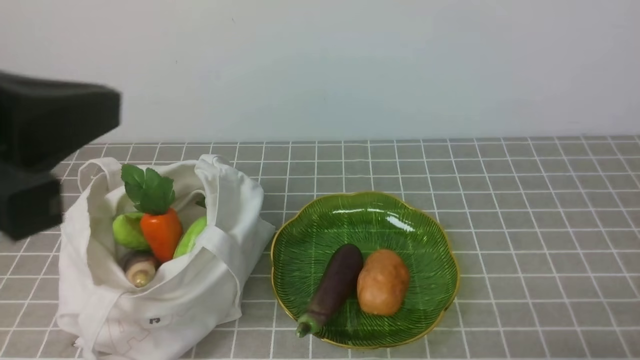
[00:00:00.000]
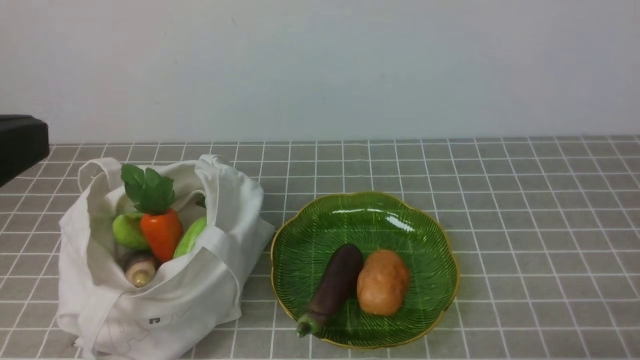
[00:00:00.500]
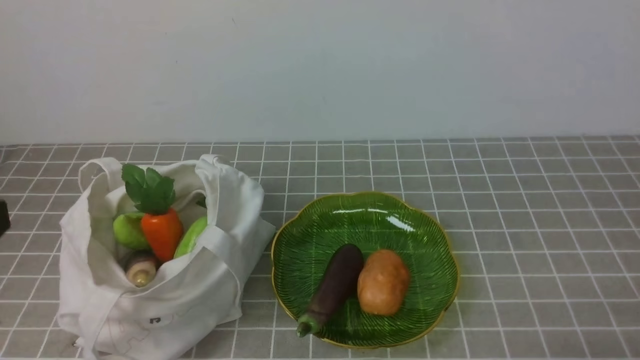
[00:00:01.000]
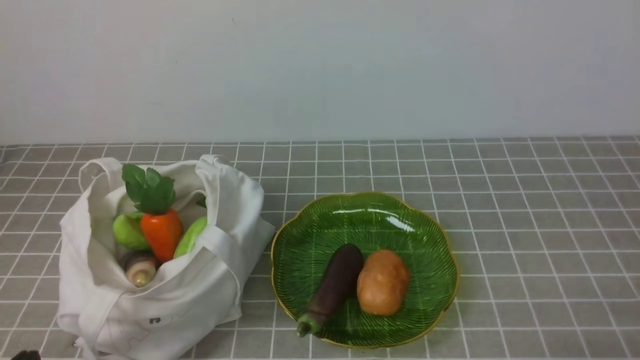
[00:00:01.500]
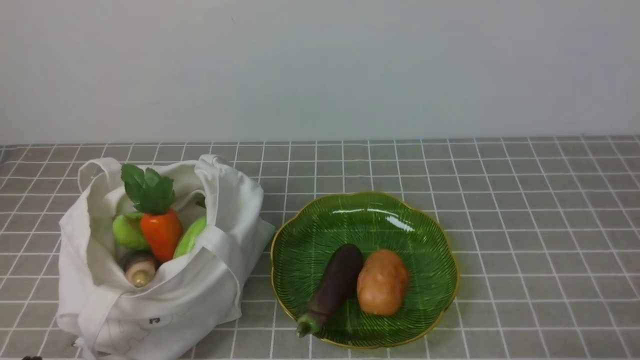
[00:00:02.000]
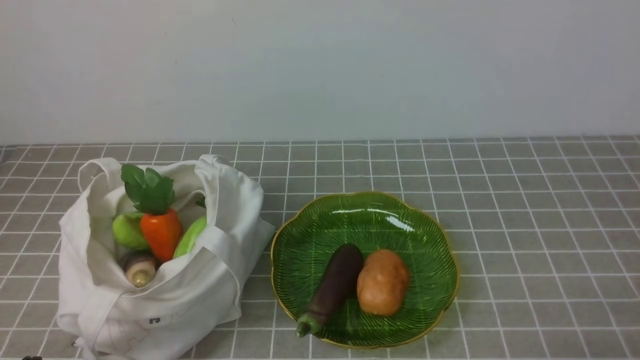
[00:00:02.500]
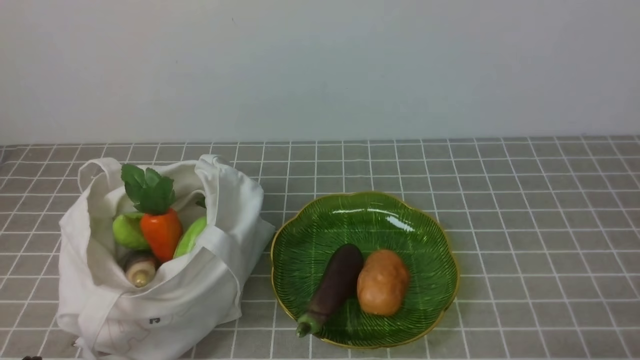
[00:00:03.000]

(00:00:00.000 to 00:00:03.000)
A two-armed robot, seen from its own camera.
Task of the whole recording: take vegetables from bag on grey coffee tablecloth place on plate.
00:00:00.000 - 00:00:01.500: The left gripper goes roughly 25 cm downward.

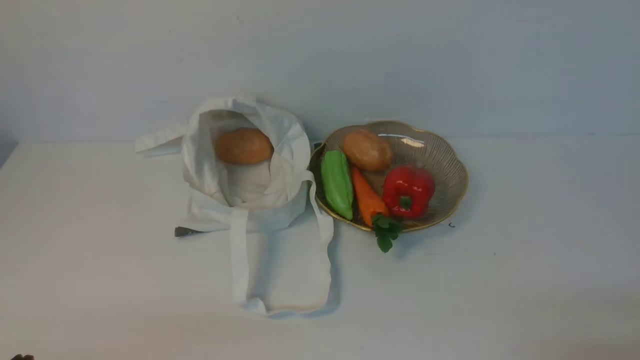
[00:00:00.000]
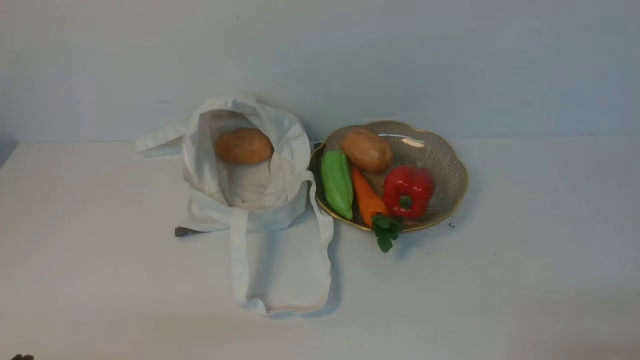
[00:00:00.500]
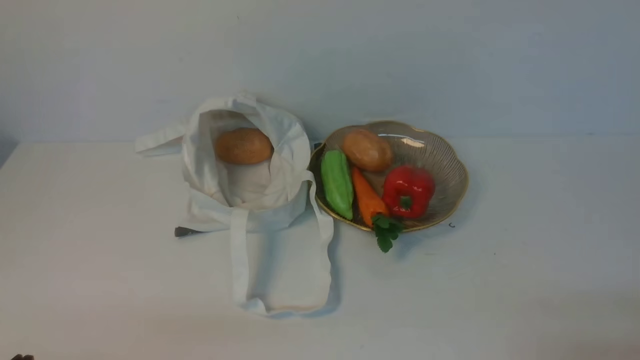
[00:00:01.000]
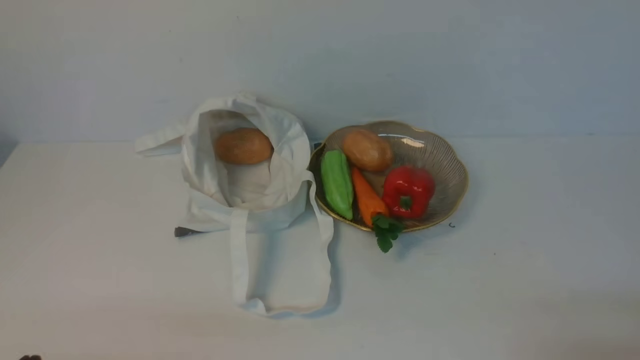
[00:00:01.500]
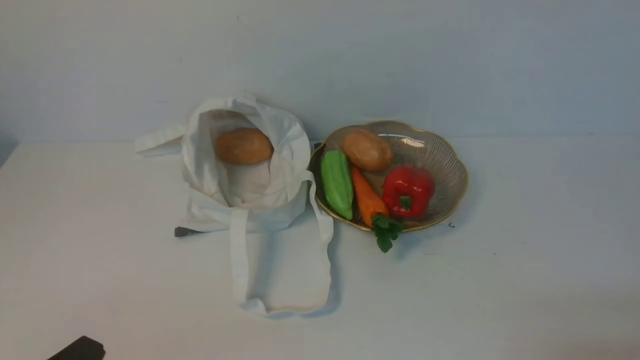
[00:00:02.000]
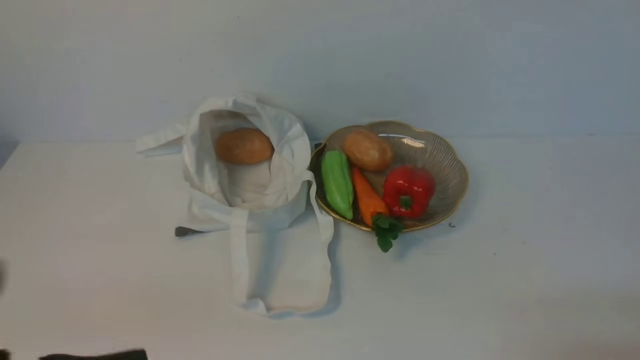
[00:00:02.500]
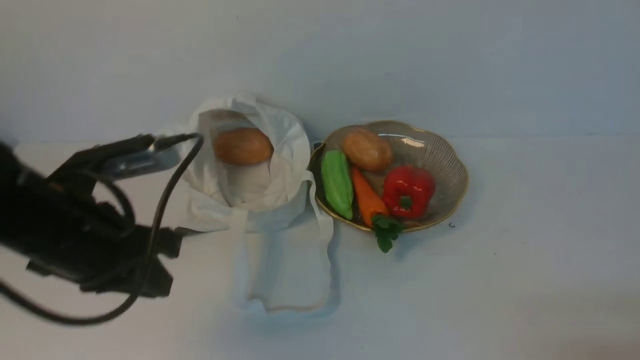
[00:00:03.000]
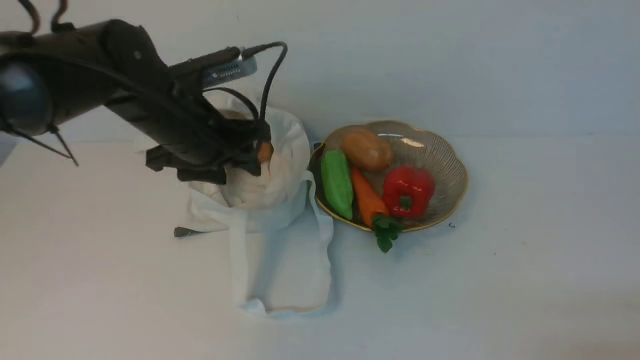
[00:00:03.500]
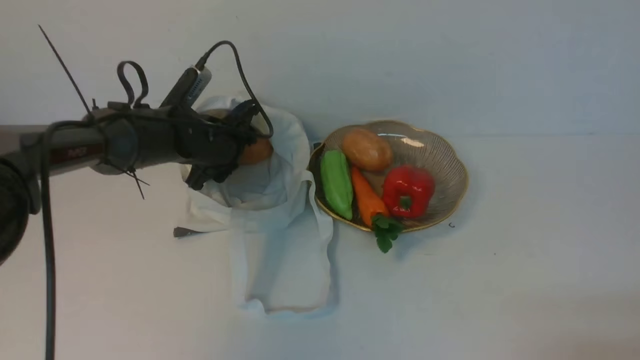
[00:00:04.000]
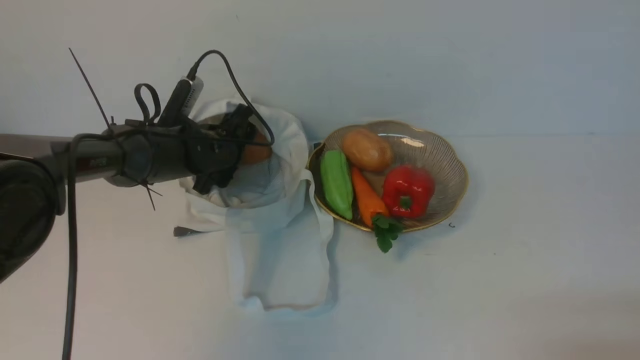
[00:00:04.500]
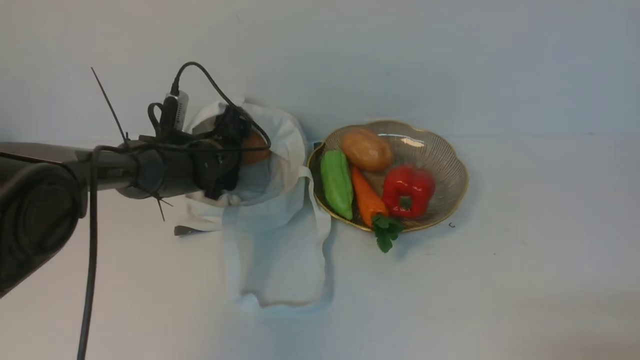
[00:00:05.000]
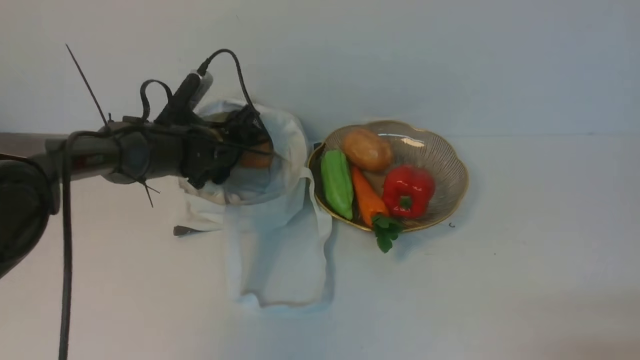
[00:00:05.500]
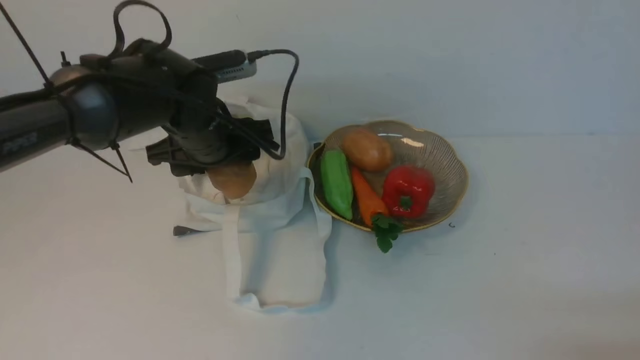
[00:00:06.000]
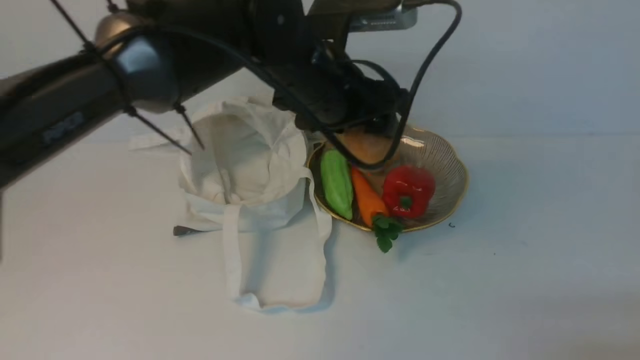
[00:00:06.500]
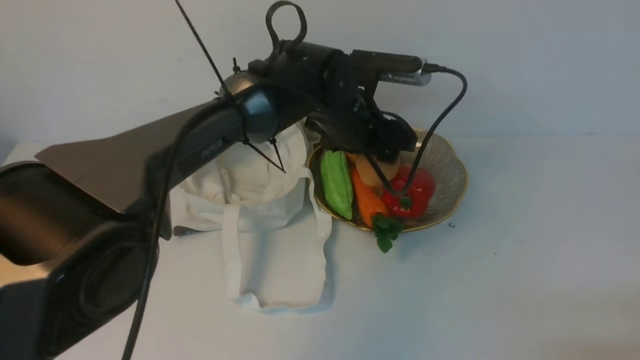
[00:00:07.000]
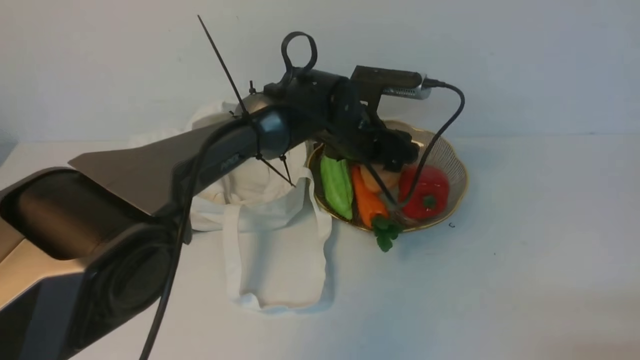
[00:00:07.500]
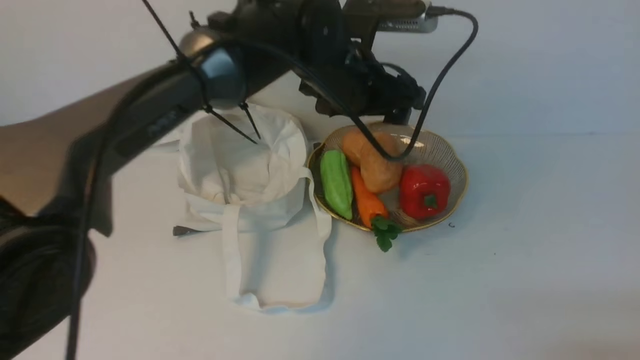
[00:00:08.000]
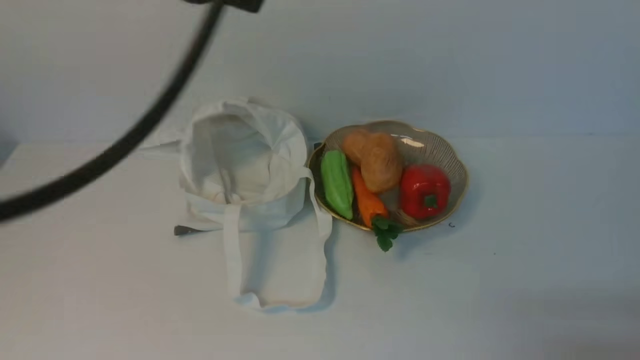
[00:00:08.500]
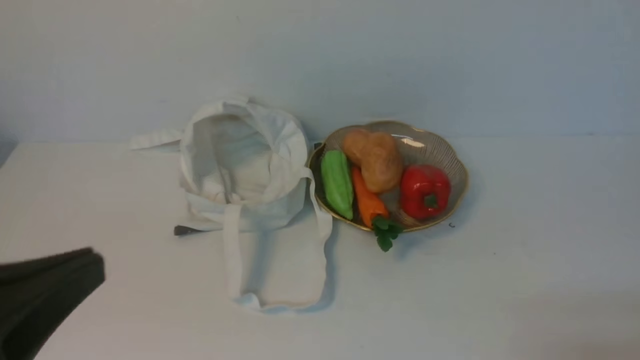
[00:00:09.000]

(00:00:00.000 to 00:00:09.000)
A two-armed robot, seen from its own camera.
Task of the whole recording: take vegetables from cloth bag on white table place on plate.
Step, 00:00:00.000 - 00:00:05.000: Grasp the potato with left gripper.
Step, 00:00:05.500 - 00:00:07.500: Place the potato on the plate with left gripper.
00:00:02.000 - 00:00:04.500: The left gripper shifts roughly 40 cm forward, and opens.
00:00:04.500 - 00:00:07.000: The left gripper is displaced to the right and upward by roughly 20 cm.
00:00:07.000 - 00:00:09.000: The left gripper moves backward and to the left, approximately 40 cm, and closes.

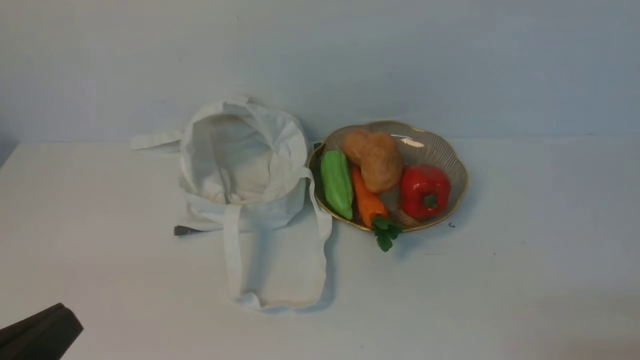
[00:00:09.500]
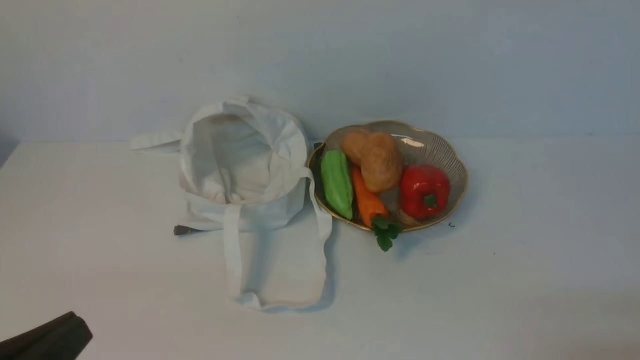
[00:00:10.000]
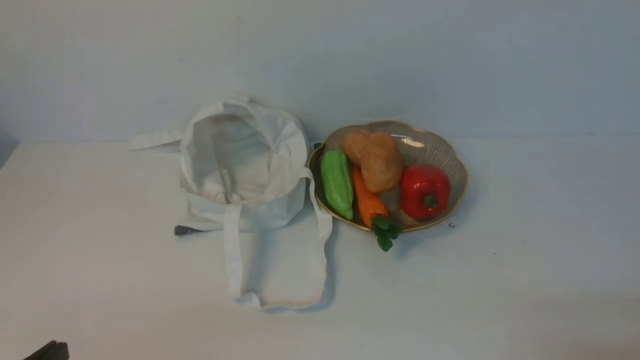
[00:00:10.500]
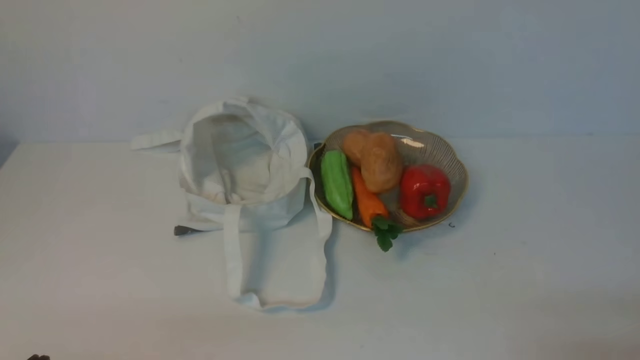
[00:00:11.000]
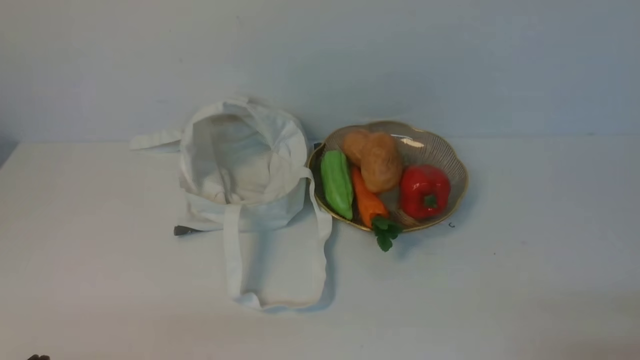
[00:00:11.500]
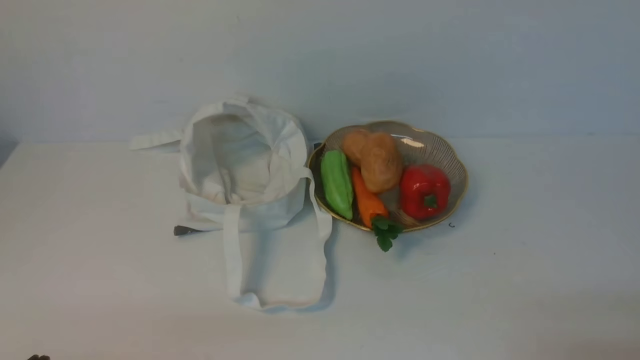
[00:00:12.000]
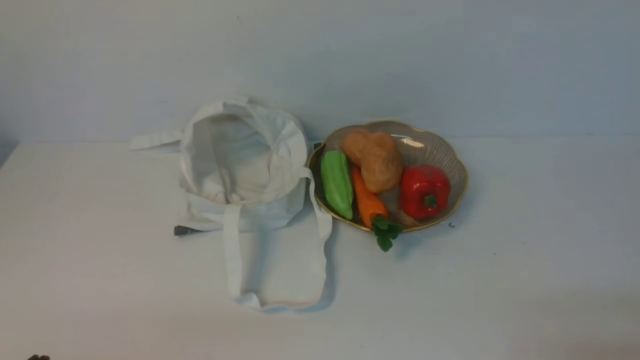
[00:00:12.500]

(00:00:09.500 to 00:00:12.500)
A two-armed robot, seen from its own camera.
Task of the whole recording: take vegetables from cloth bag on white table place on plate.
00:00:09.500 - 00:00:11.000: The left gripper heads downward, covering approximately 10 cm.
00:00:11.000 - 00:00:12.500: Both grippers stay put.
